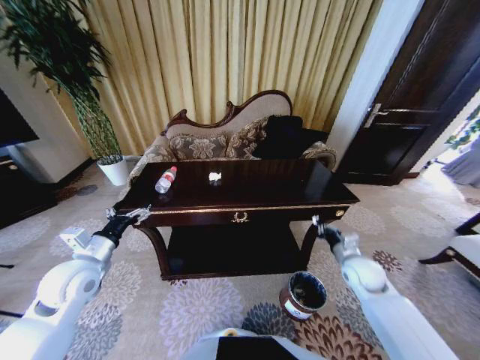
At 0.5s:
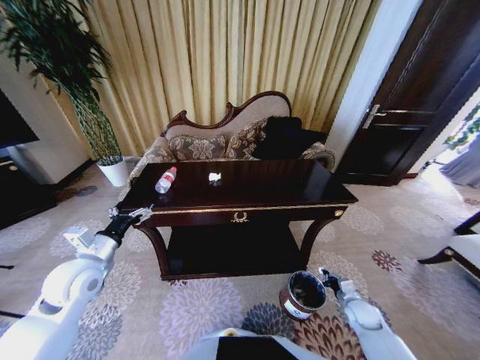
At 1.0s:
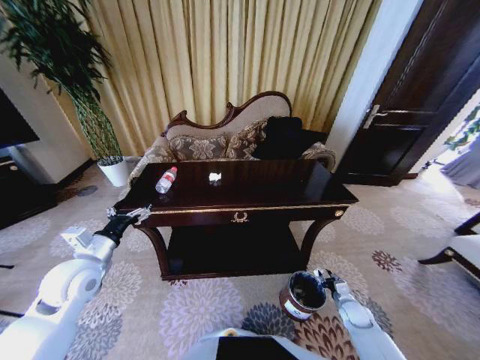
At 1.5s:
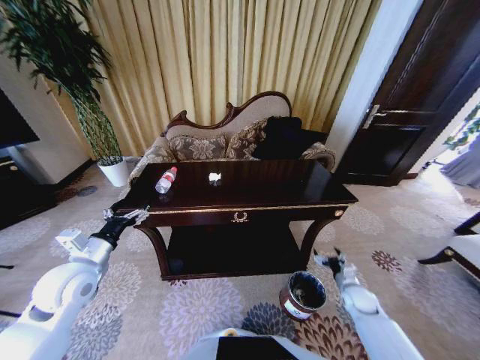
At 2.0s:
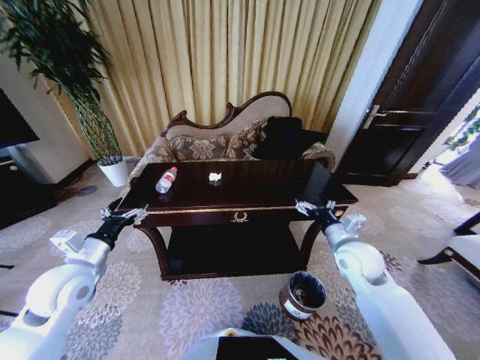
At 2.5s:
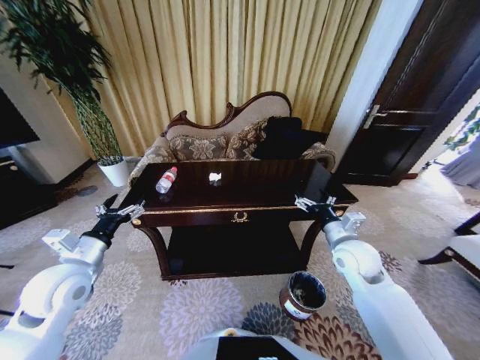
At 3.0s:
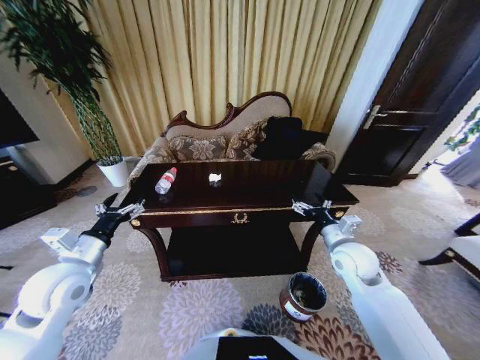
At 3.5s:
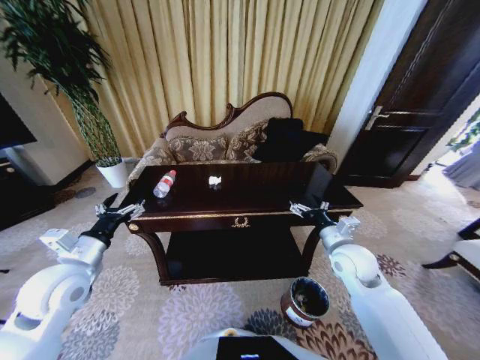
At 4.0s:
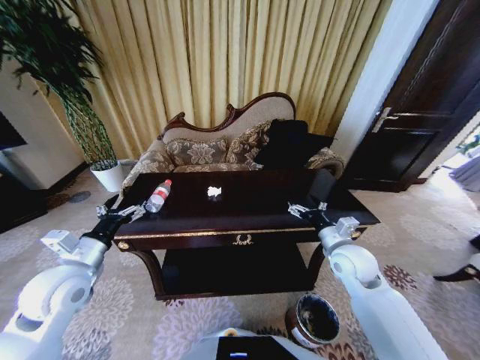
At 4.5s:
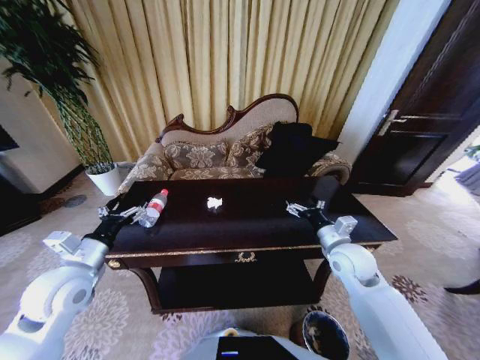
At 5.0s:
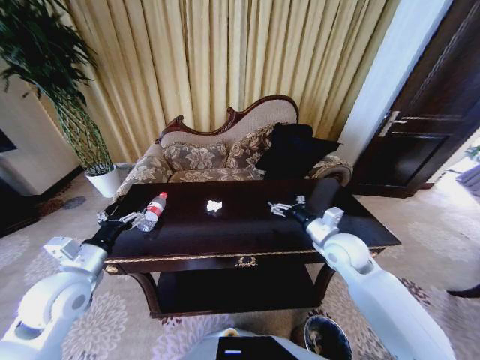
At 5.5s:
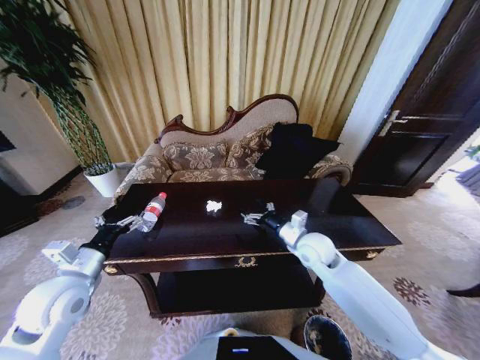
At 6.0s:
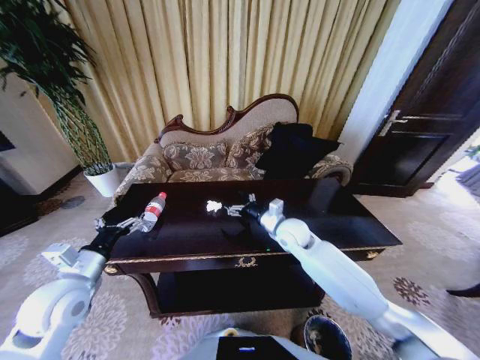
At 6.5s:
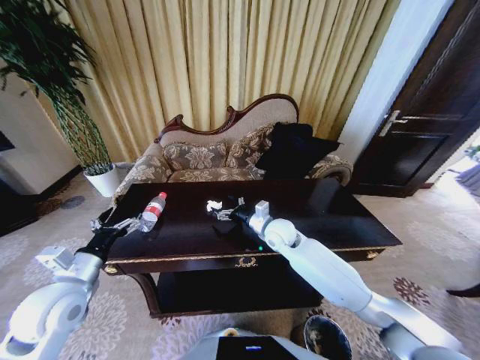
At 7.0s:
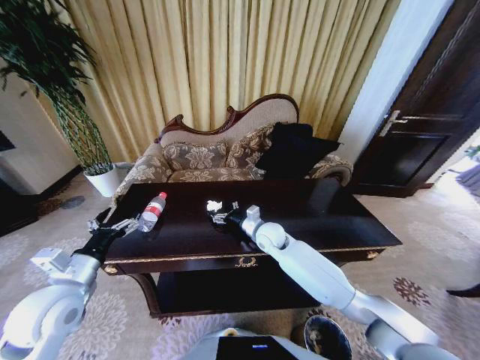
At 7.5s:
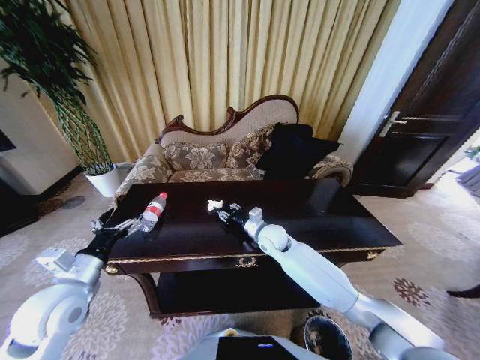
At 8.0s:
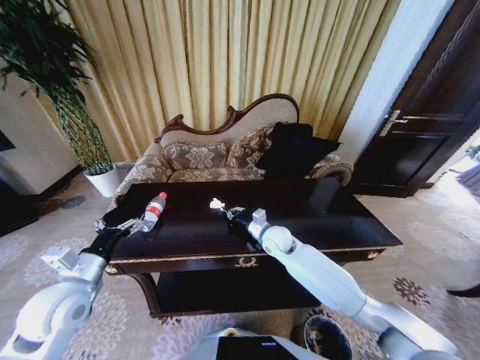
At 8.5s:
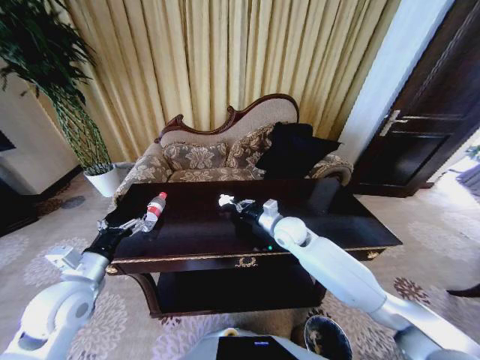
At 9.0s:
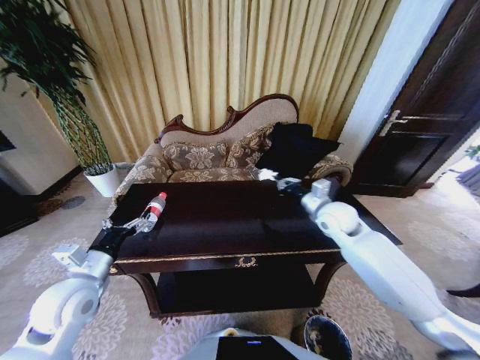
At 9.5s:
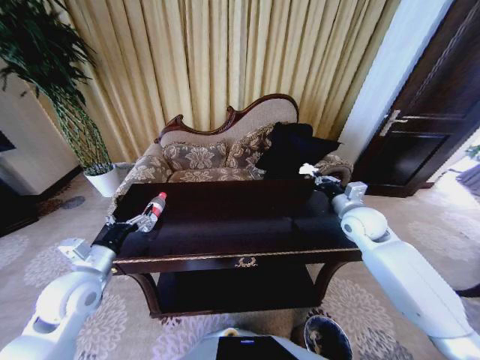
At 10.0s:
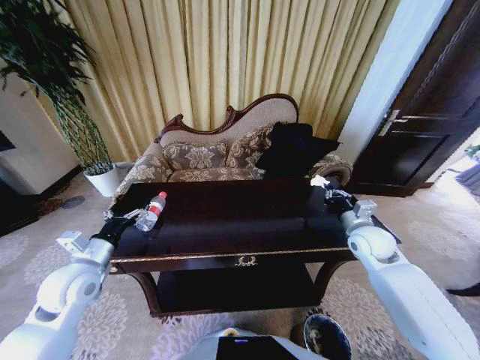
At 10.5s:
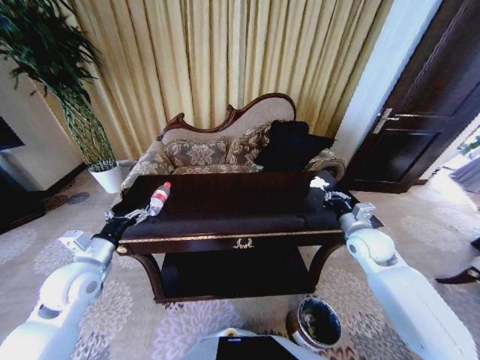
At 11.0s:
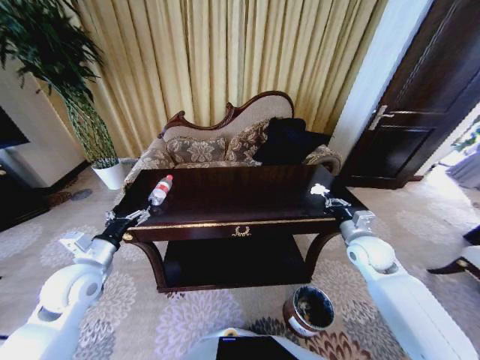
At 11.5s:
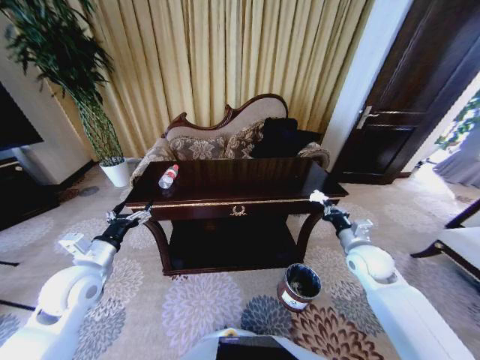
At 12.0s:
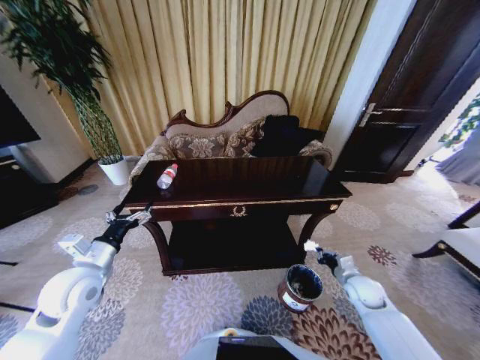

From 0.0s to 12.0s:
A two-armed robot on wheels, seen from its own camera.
Task of the whole recording: Move to the front of the table and place the trash on the table into the trash bin.
From 0.0s to 2.0s: The right gripper heads upward and to the left, covering some 15 cm, and opens its fingers.
From 4.0s to 6.0s: The right gripper travels to the left and forward by roughly 15 cm.
From 6.0s to 8.0s: The right gripper ends up about 5 cm from where it was, and closes.
From 8.0s to 10.0s: The right gripper travels to the right by about 25 cm.
From 10.0s to 12.0s: The right gripper shifts roughly 20 cm downward and backward.

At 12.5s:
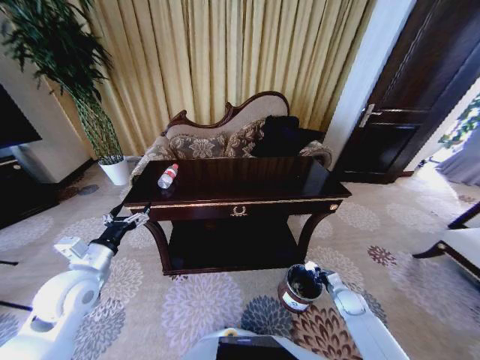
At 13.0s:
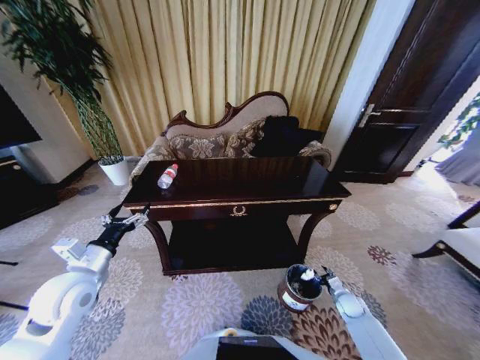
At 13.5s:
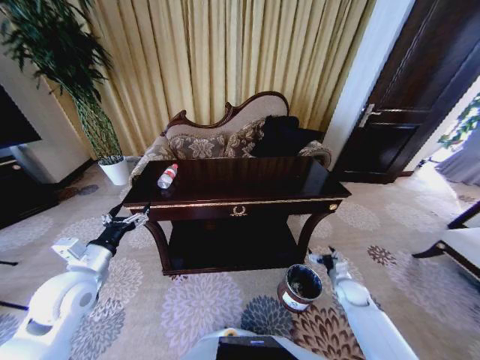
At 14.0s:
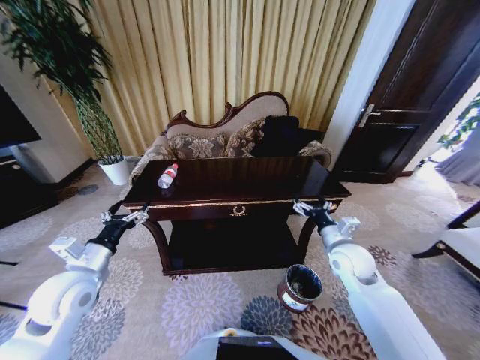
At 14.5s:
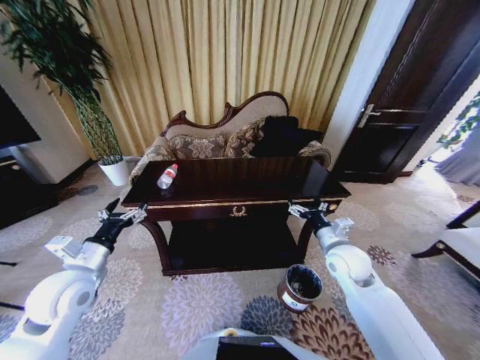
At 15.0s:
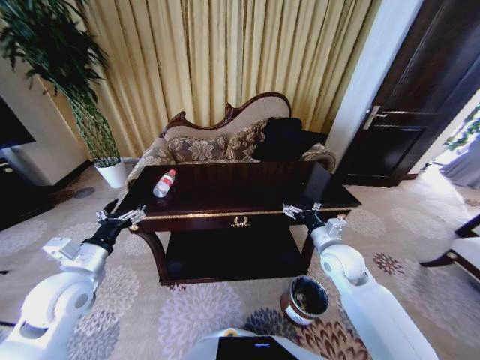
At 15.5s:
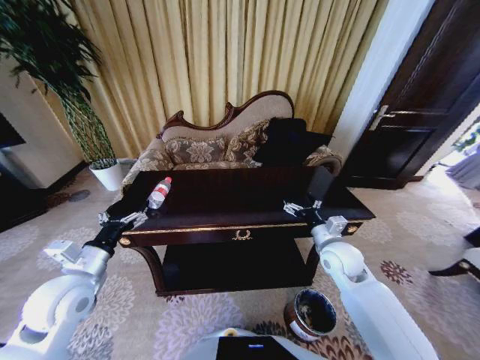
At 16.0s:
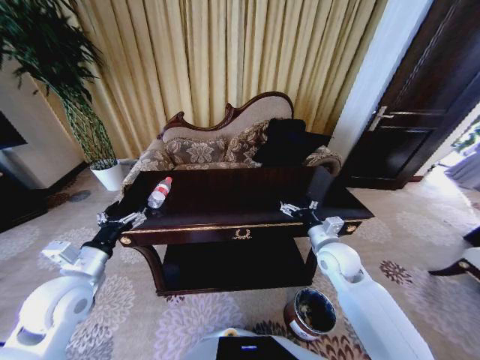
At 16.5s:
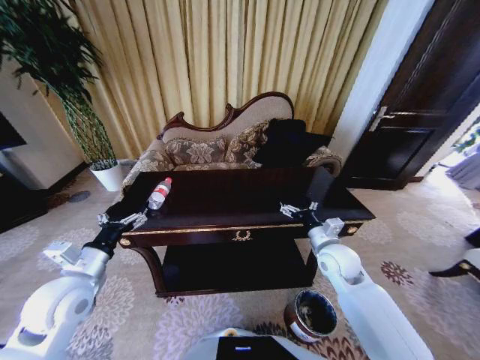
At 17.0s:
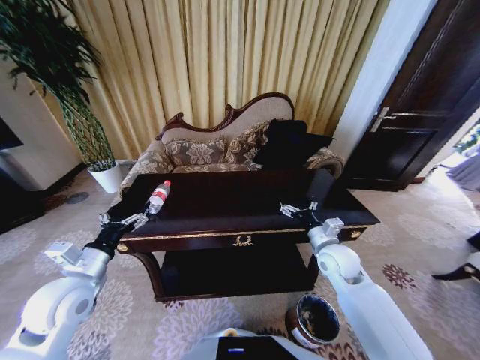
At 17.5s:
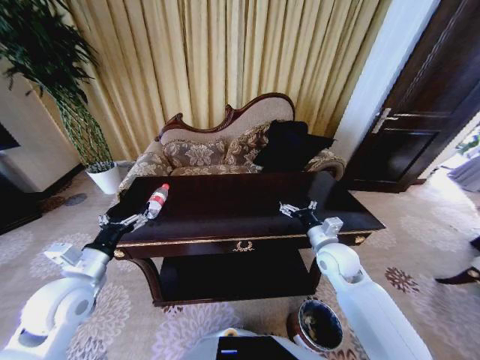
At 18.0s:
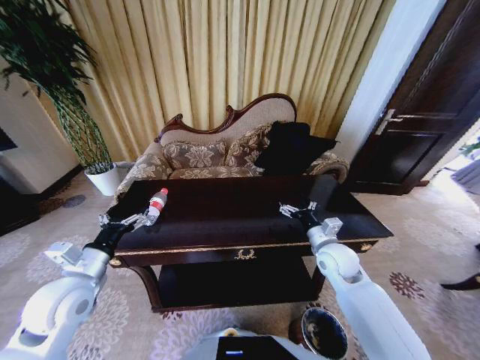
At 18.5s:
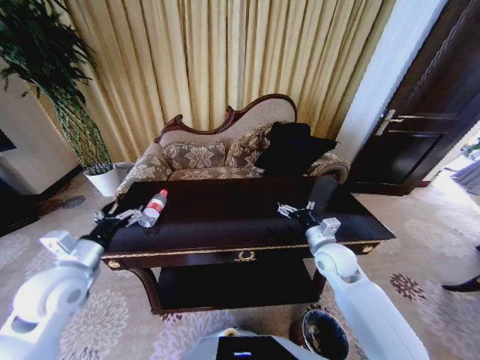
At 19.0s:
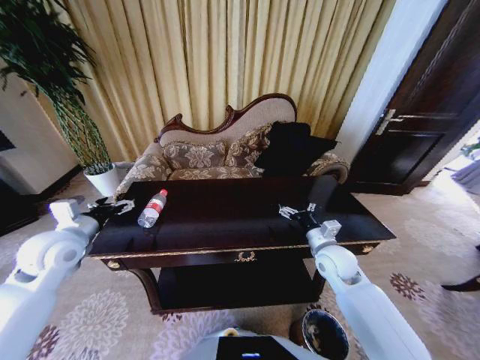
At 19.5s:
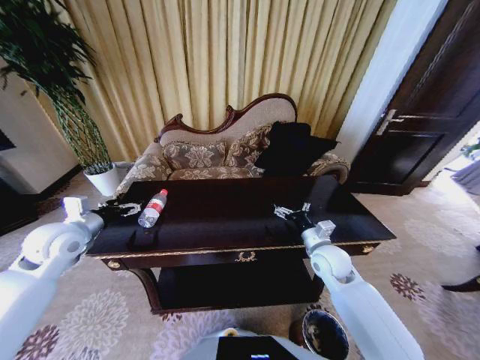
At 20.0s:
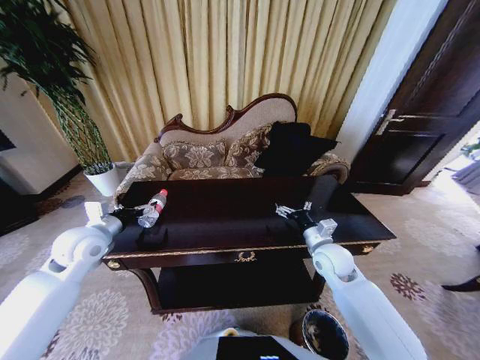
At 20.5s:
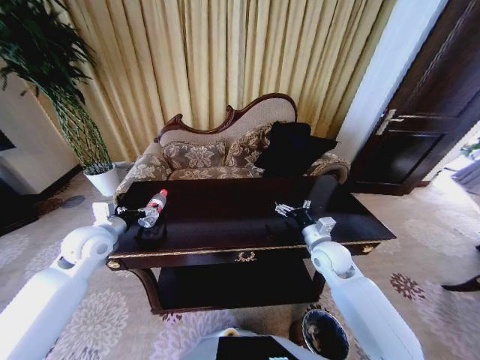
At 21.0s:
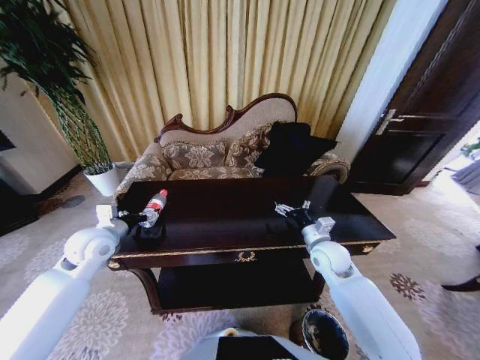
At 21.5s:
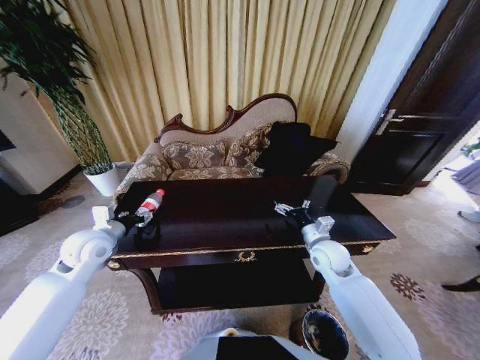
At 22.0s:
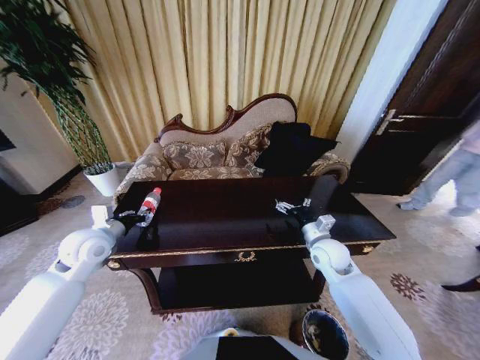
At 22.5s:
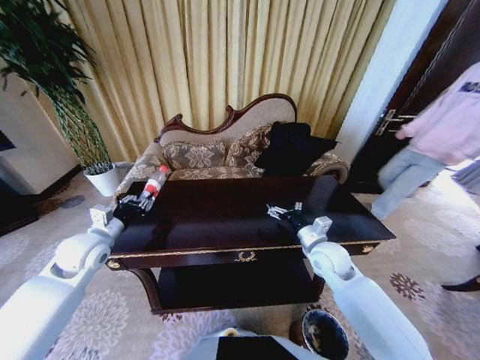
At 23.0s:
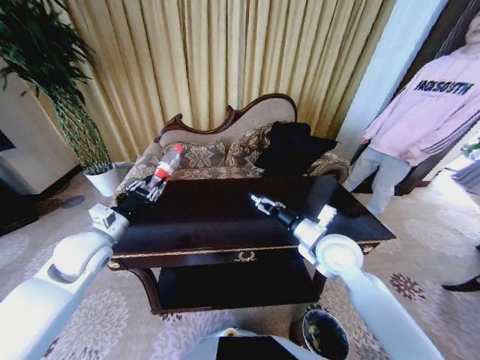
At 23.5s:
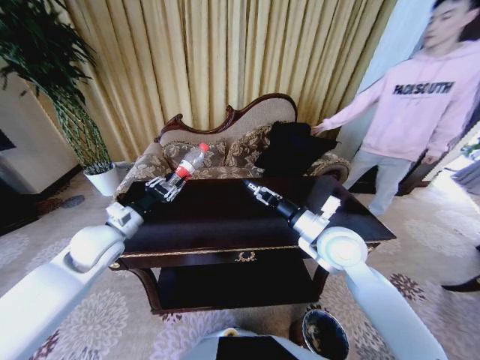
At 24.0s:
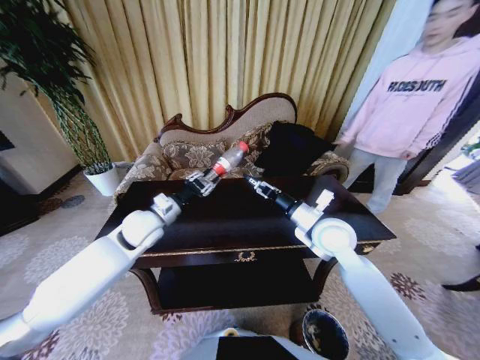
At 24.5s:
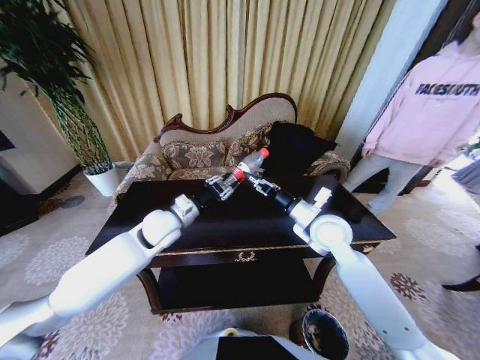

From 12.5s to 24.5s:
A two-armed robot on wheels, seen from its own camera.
Task of the whole recording: Move to the front of the table and place the trash on the table into the trash bin.
From 12.5s to 14.5s: The right gripper heads upward and to the left, covering approximately 30 cm, and opens its fingers.
From 18.5s to 20.5s: The left gripper is displaced forward by approximately 10 cm.
From 20.5s to 22.5s: The left gripper closes its fingers.
From 22.5s to 24.5s: The right gripper shifts about 10 cm upward. The left gripper moves to the right, roughly 20 cm.

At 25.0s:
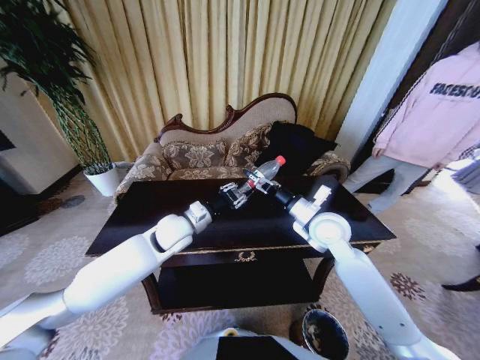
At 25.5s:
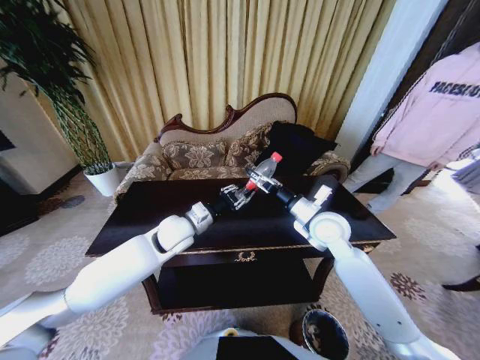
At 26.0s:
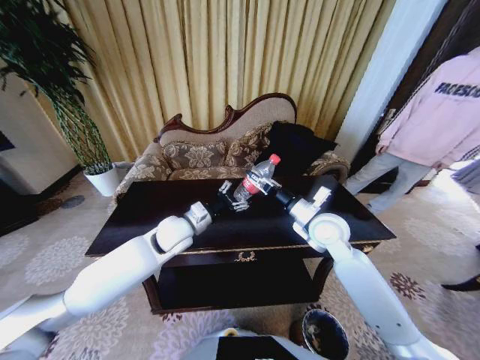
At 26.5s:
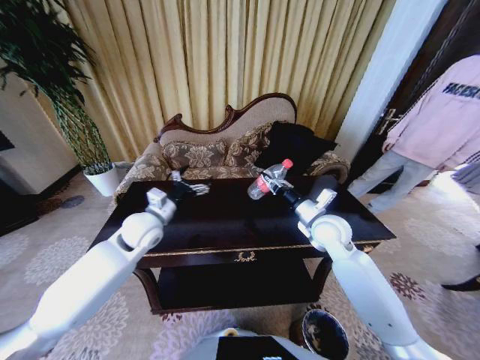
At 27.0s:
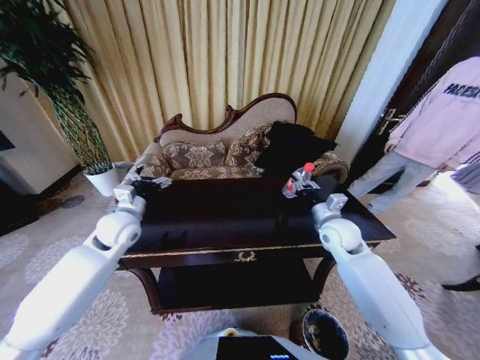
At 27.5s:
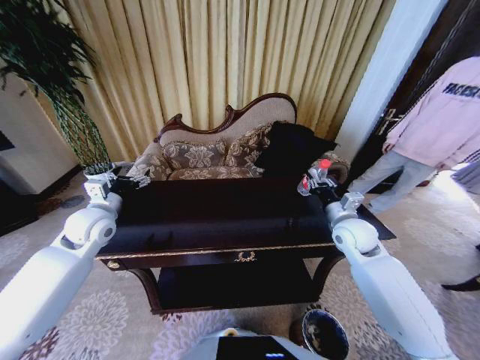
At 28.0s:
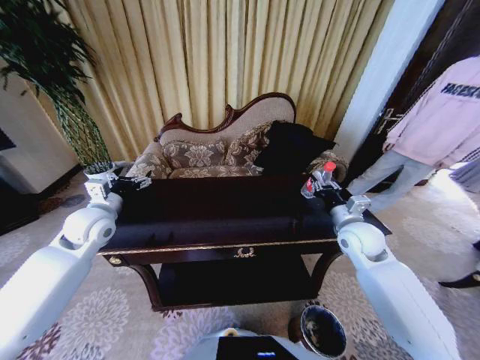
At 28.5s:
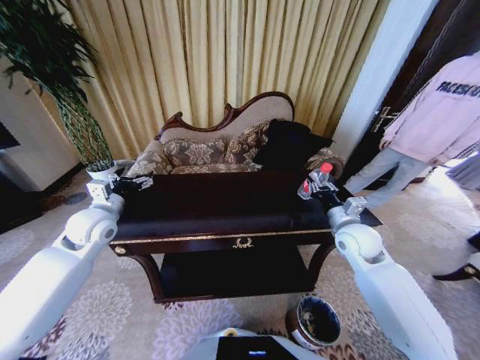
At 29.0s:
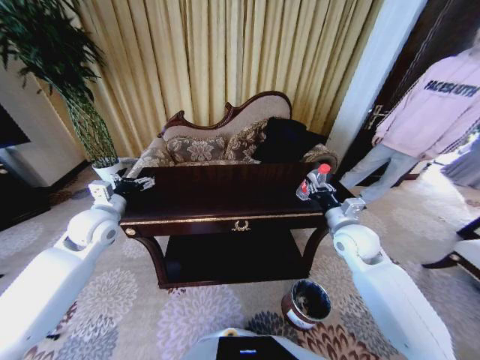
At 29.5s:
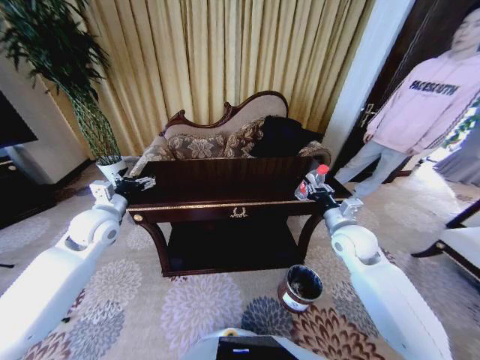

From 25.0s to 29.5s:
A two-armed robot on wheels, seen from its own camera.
Task of the whole recording: Move to the front of the table and place the trash on the table into the trash bin.
From 25.0s to 27.0s: The right gripper goes some 5 cm to the right, and closes its fingers, while the left gripper travels to the left by roughly 15 cm, and opens.
